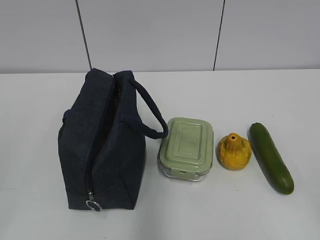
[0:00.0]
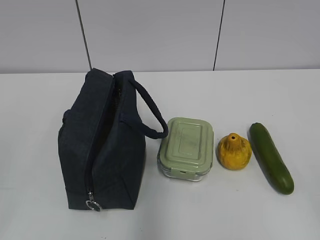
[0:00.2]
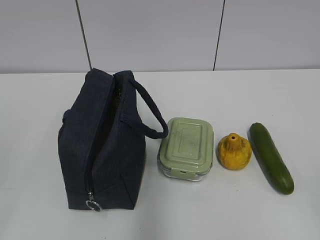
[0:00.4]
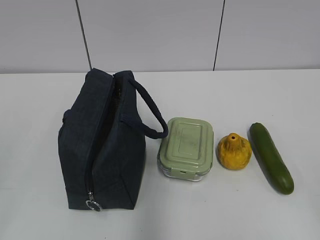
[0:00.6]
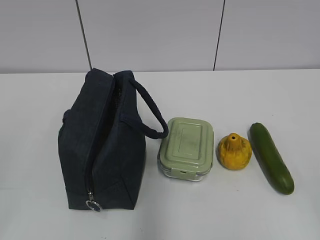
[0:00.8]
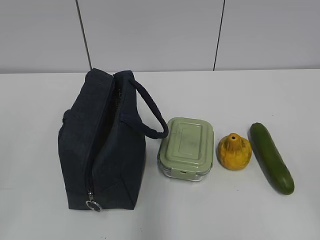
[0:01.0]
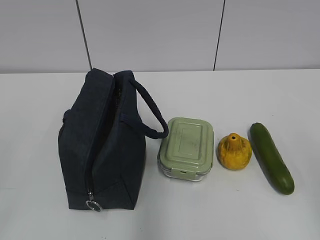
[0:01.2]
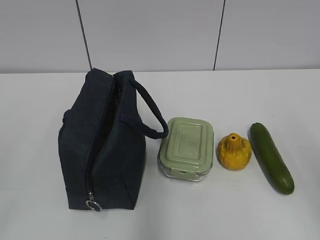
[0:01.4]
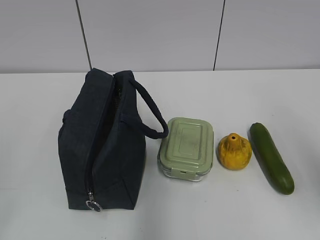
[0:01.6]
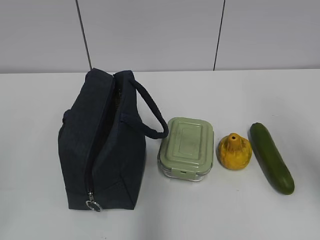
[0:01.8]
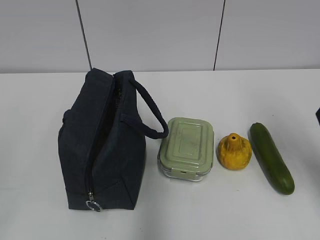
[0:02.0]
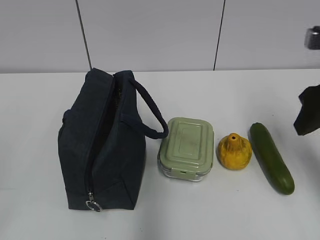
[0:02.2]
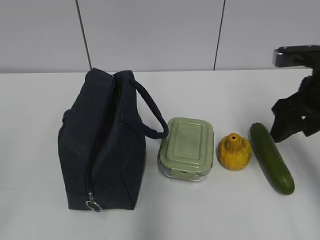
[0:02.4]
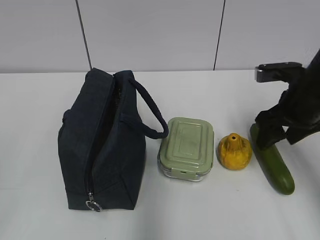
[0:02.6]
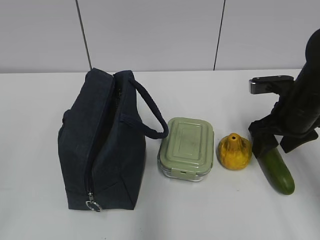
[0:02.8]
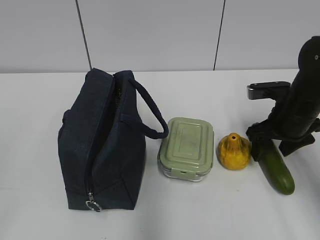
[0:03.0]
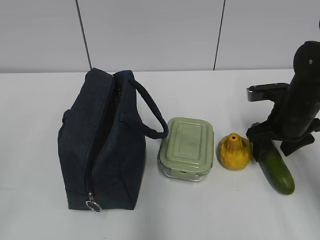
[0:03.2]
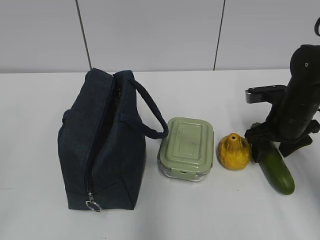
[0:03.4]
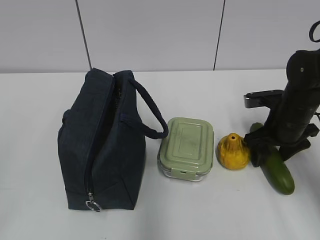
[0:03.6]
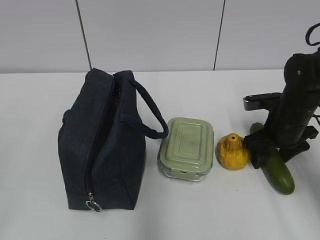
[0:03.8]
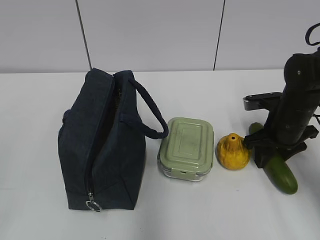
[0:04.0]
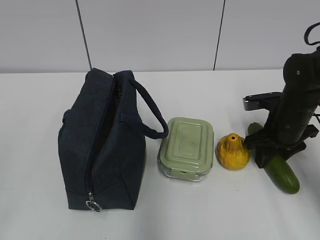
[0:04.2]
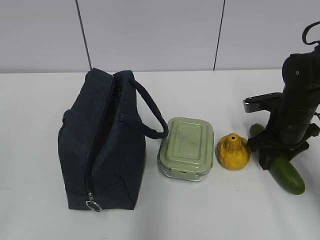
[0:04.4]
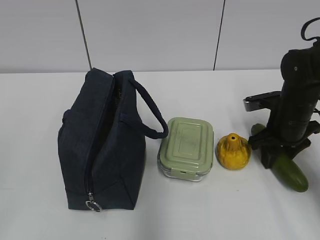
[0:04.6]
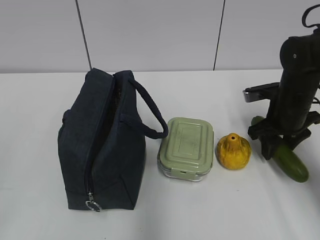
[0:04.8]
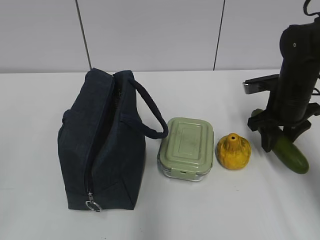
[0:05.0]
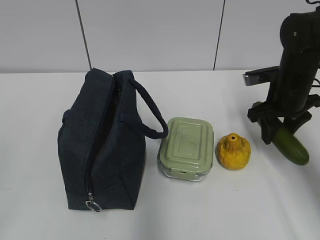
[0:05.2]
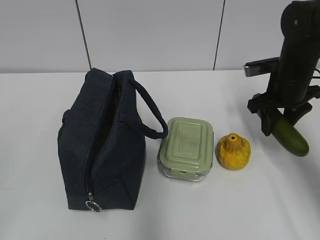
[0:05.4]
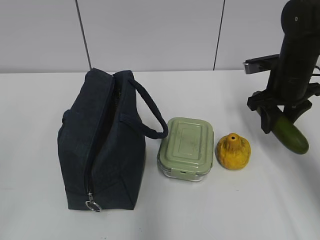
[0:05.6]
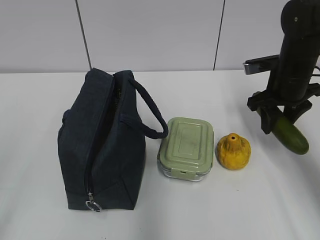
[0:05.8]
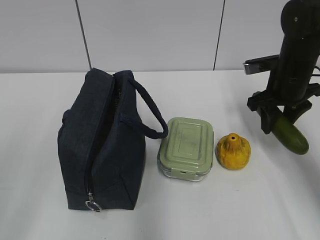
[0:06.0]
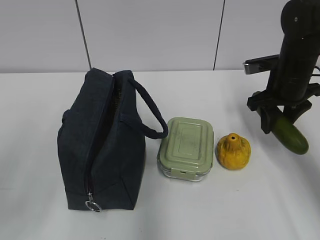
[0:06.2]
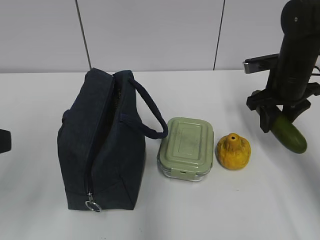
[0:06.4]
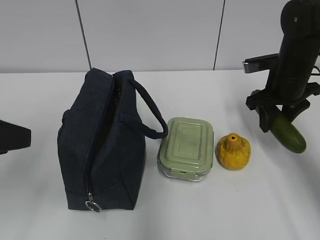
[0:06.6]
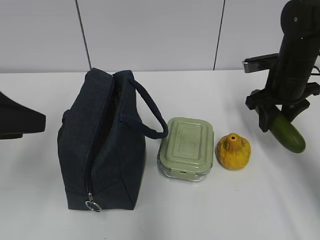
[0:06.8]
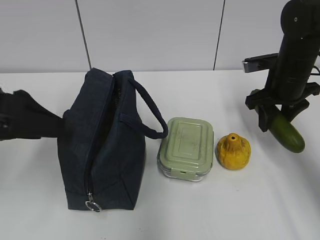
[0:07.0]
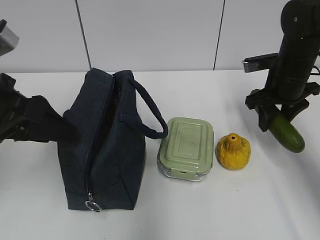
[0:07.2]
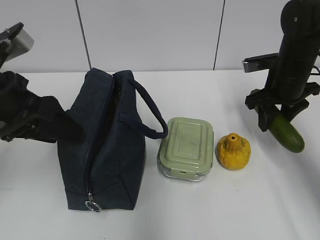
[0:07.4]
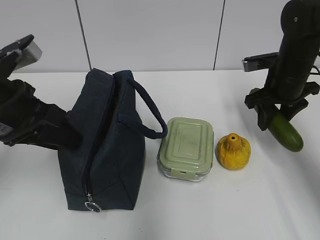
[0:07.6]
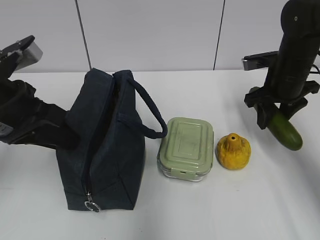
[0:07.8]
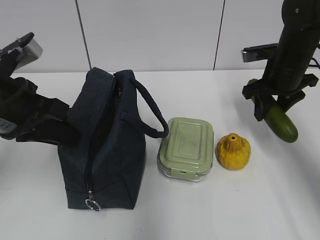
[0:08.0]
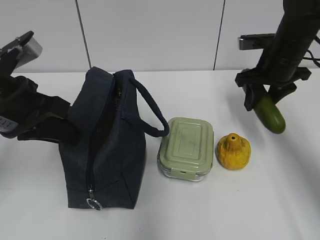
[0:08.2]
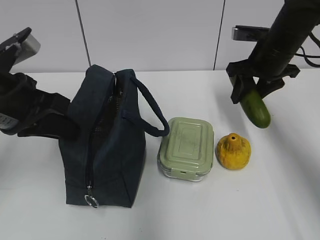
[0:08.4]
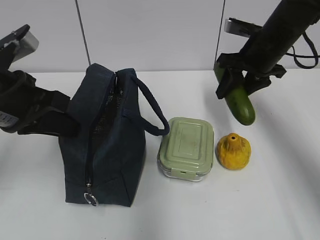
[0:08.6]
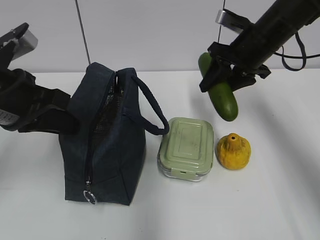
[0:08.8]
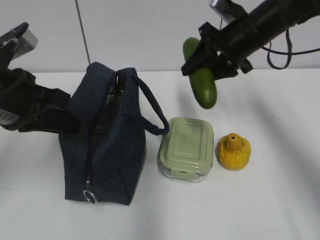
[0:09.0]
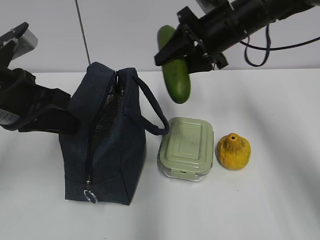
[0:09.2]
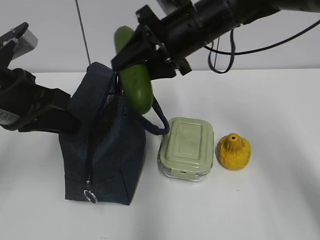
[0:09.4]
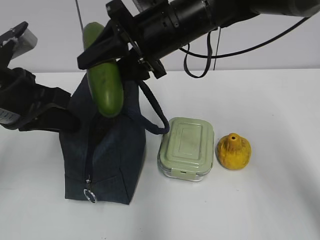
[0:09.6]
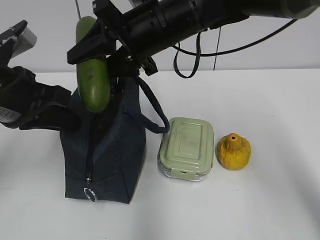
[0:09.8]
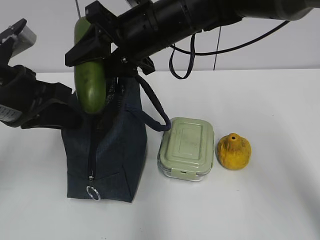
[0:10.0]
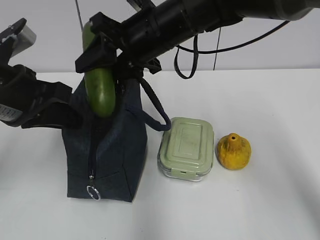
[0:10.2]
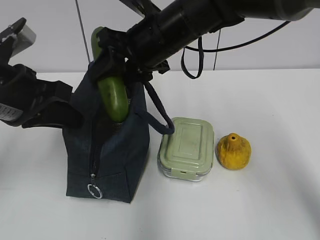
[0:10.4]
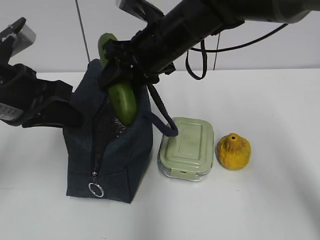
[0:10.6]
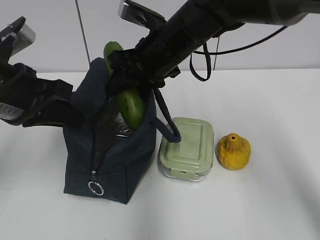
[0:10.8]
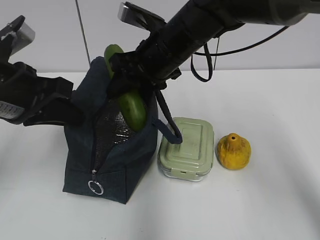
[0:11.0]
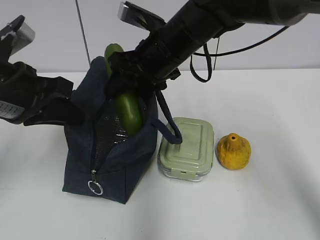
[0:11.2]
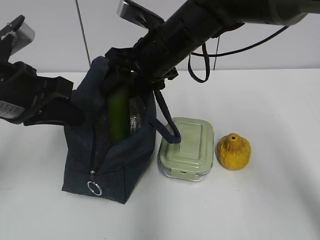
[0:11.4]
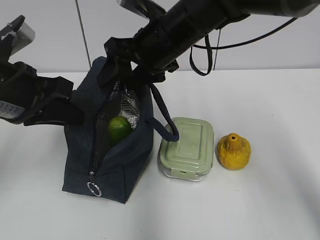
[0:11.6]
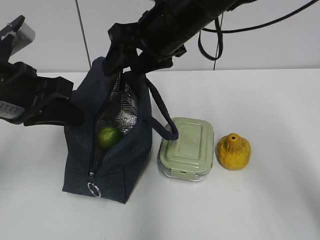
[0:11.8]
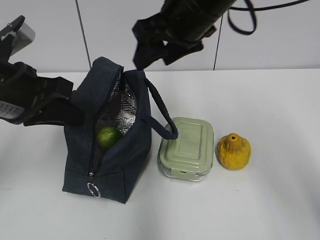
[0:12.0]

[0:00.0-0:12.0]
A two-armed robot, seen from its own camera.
Step, 0:00.0 to 0:04.2: Grab the cucumber with your right hand.
Step, 0:04.4 to 0:10.2: Grab the lunch bag with your left hand.
Step, 0:10.4 to 0:11.6: Place it into the bag with your right hand.
0:01.6 to 0:03.0: The right gripper shifts roughly 30 cm forward and downward.
0:03.0 to 0:04.4: There are only small adjustments of the grippers.
0:04.4 to 0:06.0: The right gripper is displaced upward by some 5 cm.
0:06.0 to 0:07.6: The left gripper moves forward, some 20 cm.
0:07.6 to 0:09.0: The right gripper heads to the left and upward, covering about 10 cm, while the left gripper closes its fingers.
0:09.0 to 0:10.4: The right gripper shifts roughly 15 cm to the left.
0:10.4 to 0:12.0: The right gripper ends up approximately 5 cm from where it was.

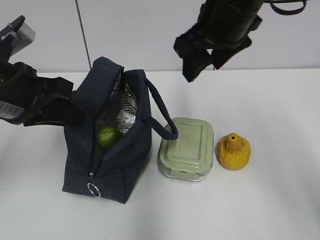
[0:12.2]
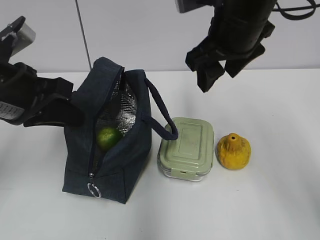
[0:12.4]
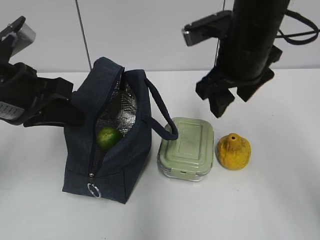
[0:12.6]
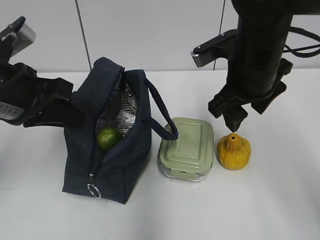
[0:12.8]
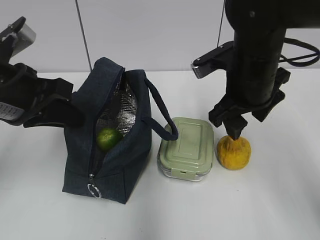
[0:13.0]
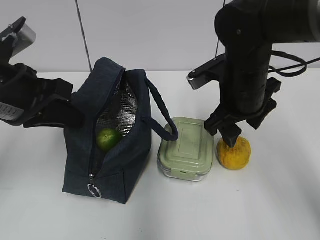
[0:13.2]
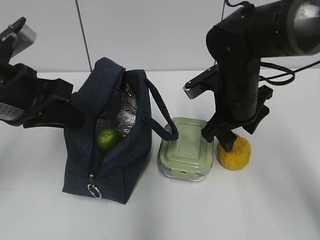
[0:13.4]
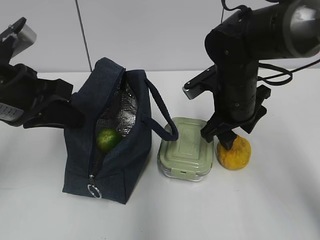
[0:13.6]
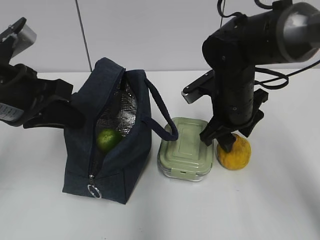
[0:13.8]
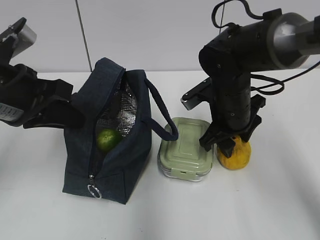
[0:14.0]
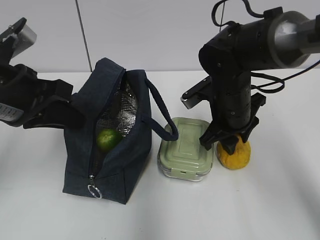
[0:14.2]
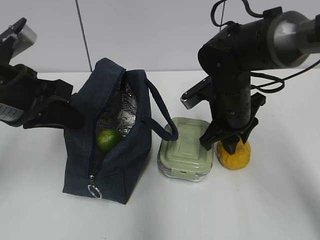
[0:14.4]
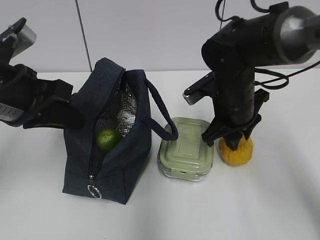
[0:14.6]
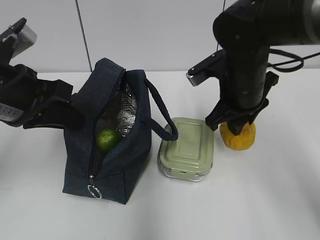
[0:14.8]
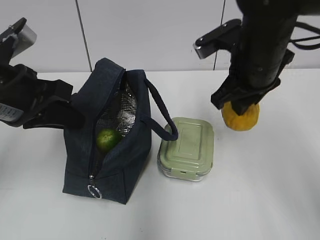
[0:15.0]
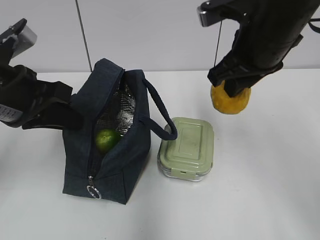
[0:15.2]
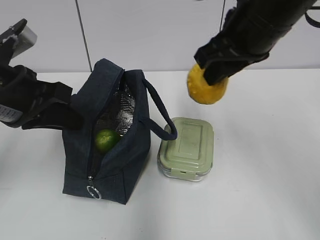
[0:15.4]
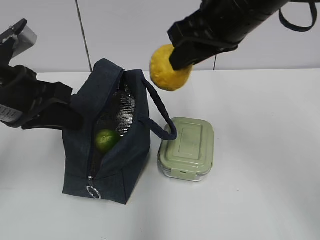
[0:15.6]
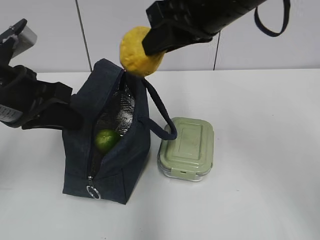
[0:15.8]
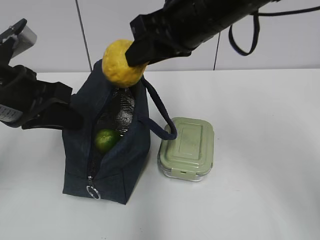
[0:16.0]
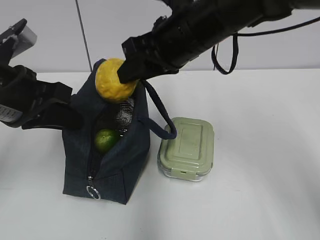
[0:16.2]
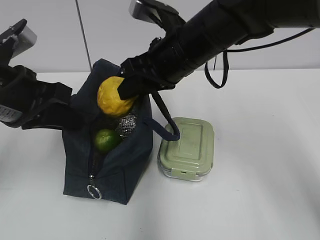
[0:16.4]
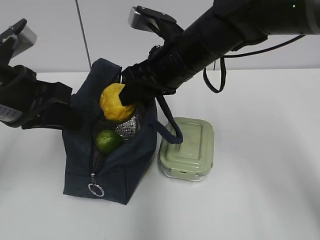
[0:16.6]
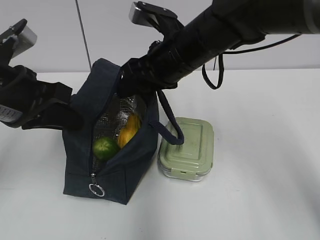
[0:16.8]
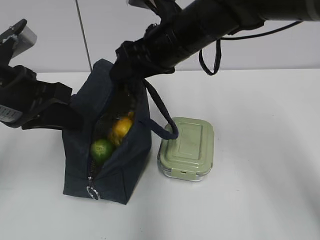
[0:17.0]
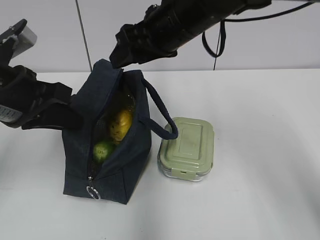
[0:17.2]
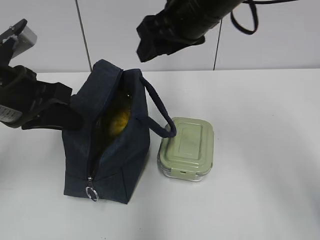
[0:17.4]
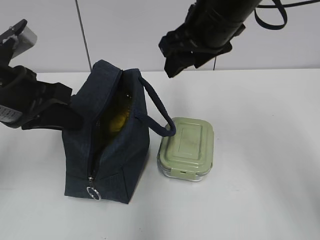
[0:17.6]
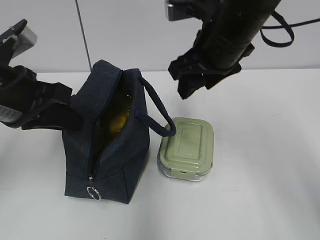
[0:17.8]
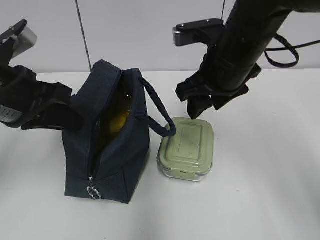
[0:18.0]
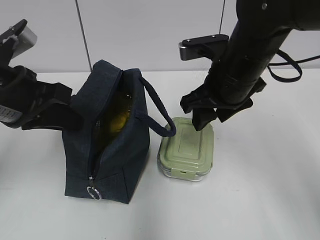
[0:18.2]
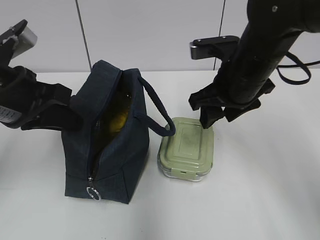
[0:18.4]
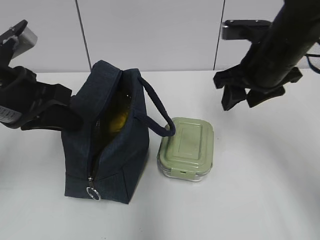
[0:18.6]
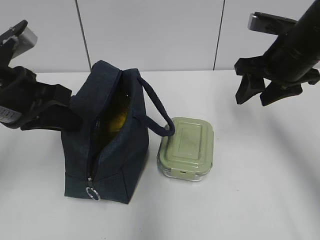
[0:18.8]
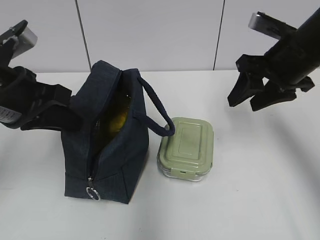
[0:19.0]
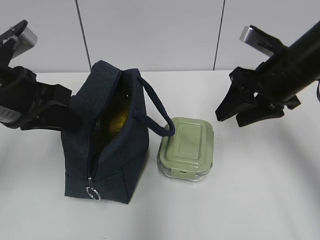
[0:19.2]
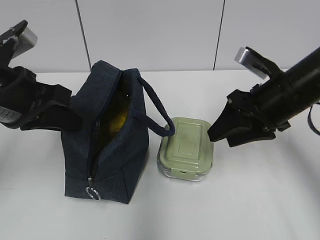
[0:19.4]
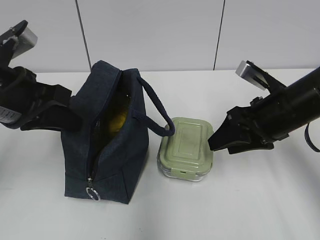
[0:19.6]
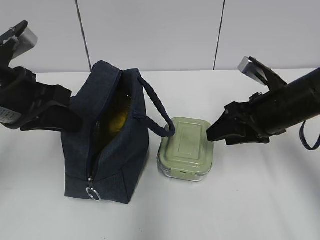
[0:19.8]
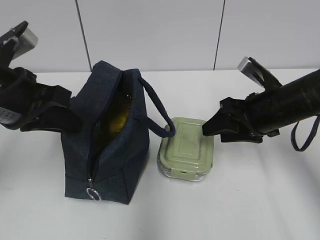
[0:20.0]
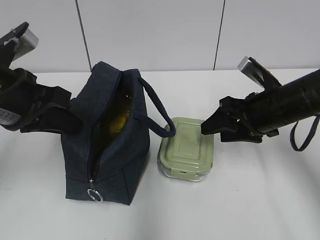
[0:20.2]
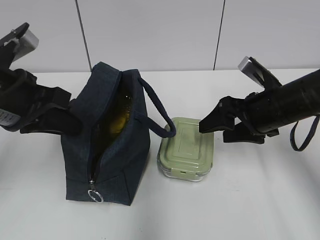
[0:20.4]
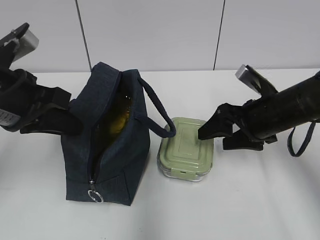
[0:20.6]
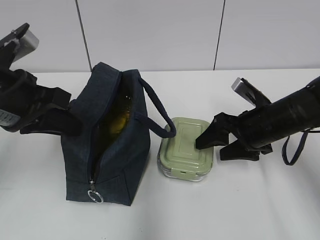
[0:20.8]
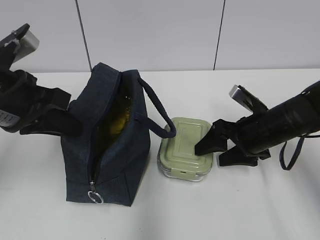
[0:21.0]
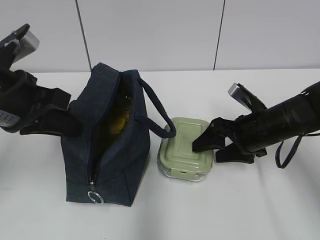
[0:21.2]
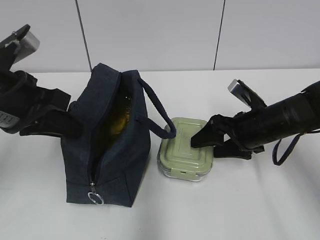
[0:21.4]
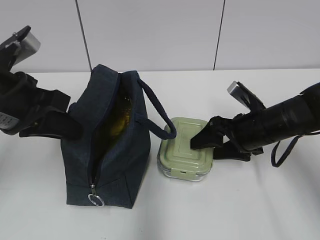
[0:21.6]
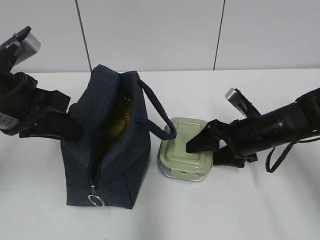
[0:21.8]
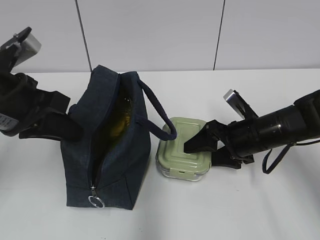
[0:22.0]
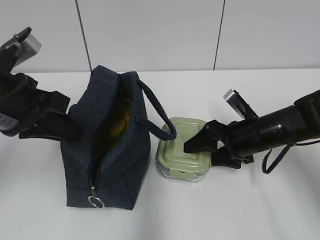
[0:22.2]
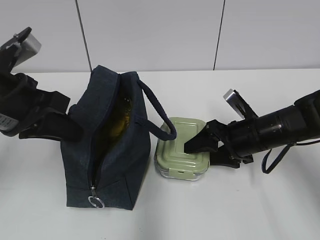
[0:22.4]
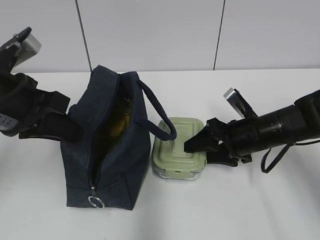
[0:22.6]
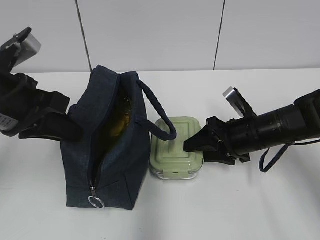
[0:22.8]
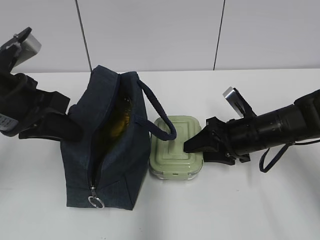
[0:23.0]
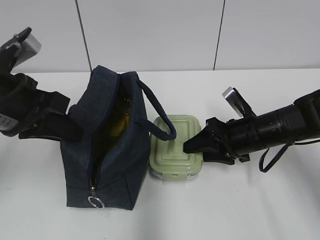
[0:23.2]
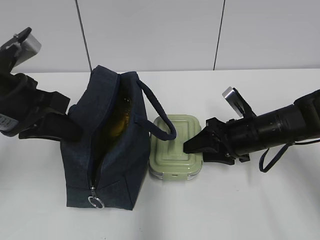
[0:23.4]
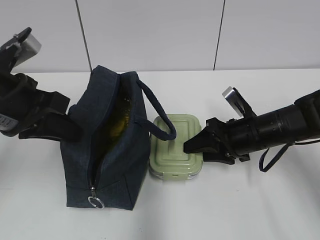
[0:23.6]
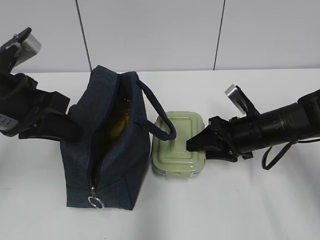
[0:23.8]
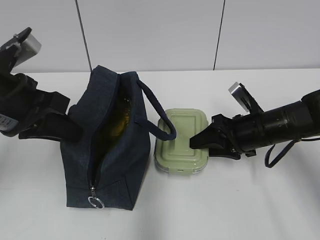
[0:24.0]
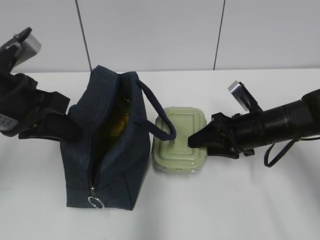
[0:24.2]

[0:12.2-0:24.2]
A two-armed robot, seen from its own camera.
Step, 0:12.2 to 0:14.2: Grab the pear with your right hand.
Step, 0:14.4 to 0:17.0: Place it into the bag with your right hand.
Step, 0:17.2 to 0:23.4: Grab the lunch box with your right hand.
0:12.2 to 0:13.8: The right gripper travels downward by some 15 cm.
0:13.8 to 0:15.2: The right gripper goes approximately 15 cm upward.
0:15.2 to 0:16.6: The right gripper moves to the left and downward, roughly 10 cm.
0:16.6 to 0:18.2: The right gripper shifts roughly 5 cm to the right, and travels upward and back again, approximately 5 cm each way.
0:18.2 to 0:19.8: The right gripper travels to the right and downward by roughly 10 cm.
0:19.8 to 0:21.2: The right gripper moves downward, about 5 cm.
0:21.2 to 0:22.6: The grippers make only small movements.
0:22.6 to 0:24.2: The two grippers keep their place.
